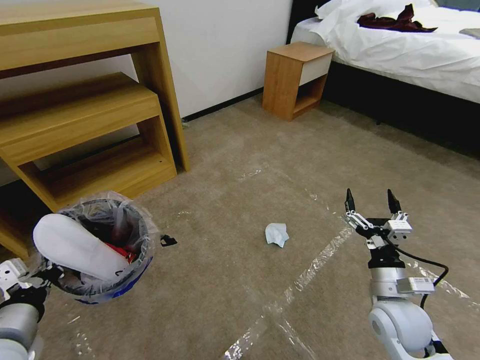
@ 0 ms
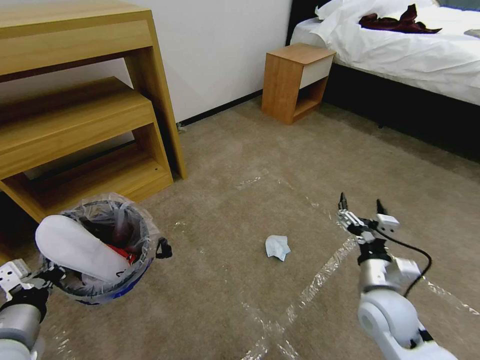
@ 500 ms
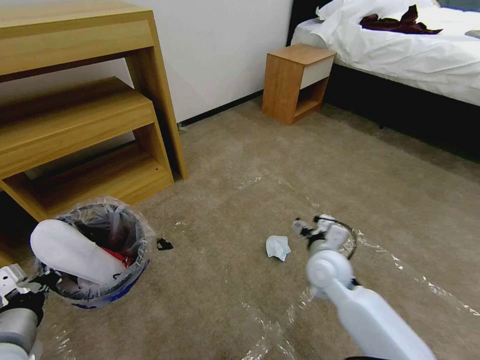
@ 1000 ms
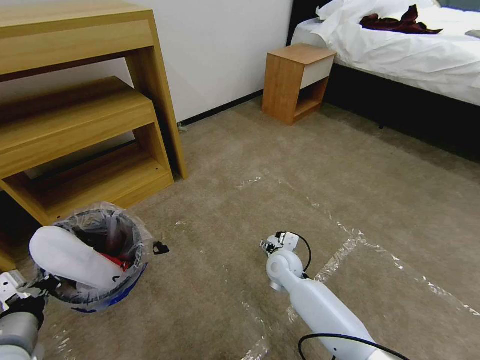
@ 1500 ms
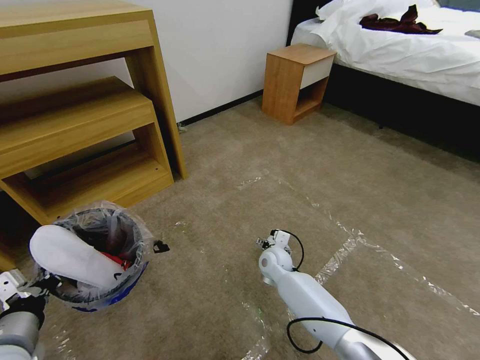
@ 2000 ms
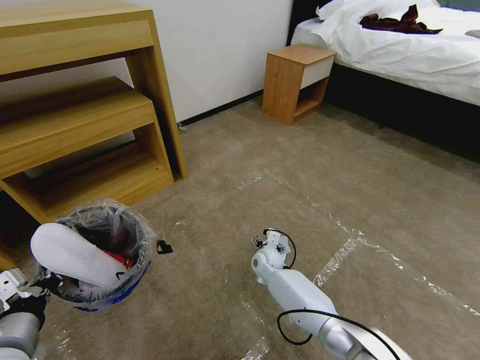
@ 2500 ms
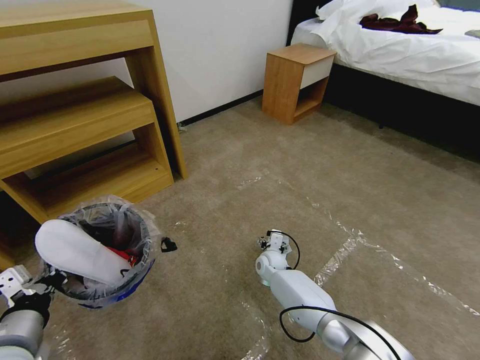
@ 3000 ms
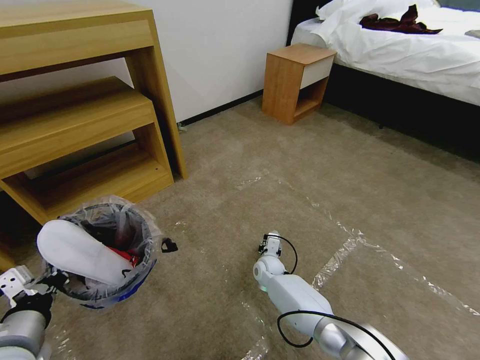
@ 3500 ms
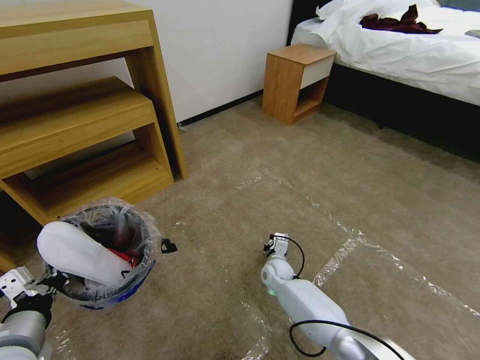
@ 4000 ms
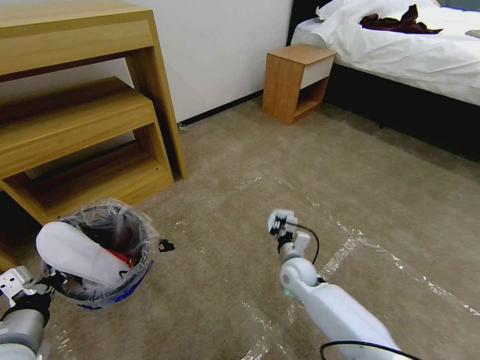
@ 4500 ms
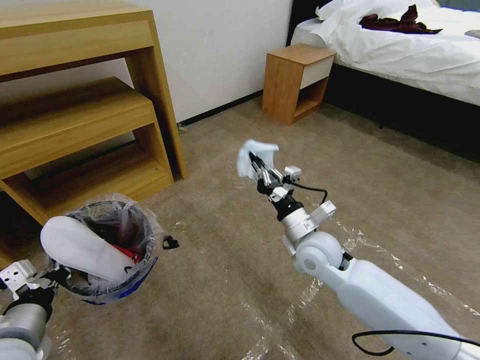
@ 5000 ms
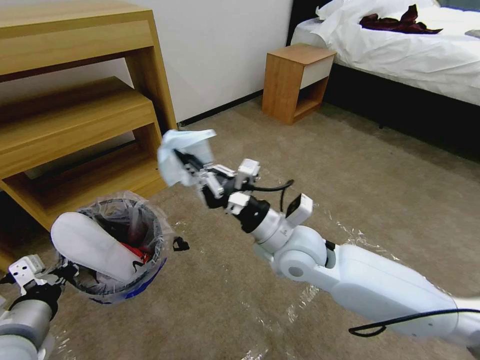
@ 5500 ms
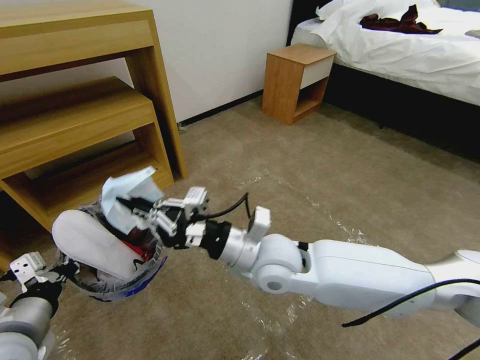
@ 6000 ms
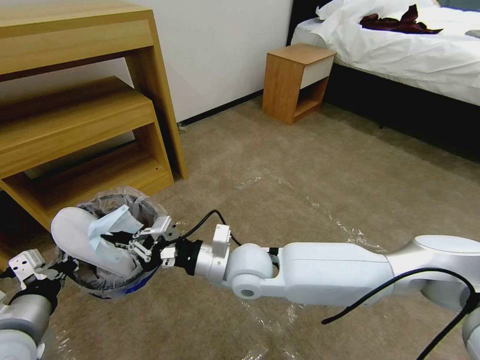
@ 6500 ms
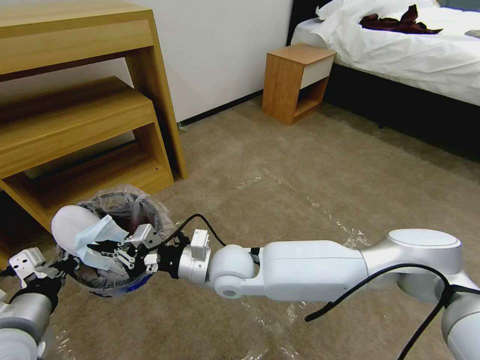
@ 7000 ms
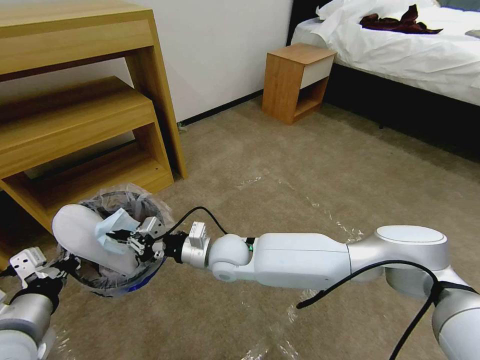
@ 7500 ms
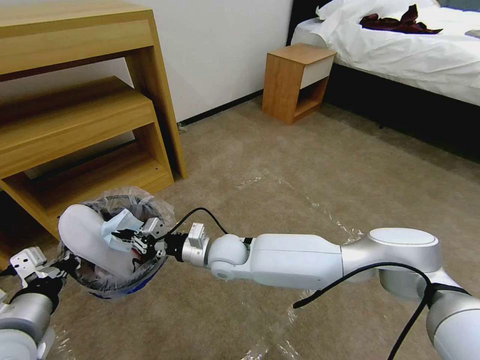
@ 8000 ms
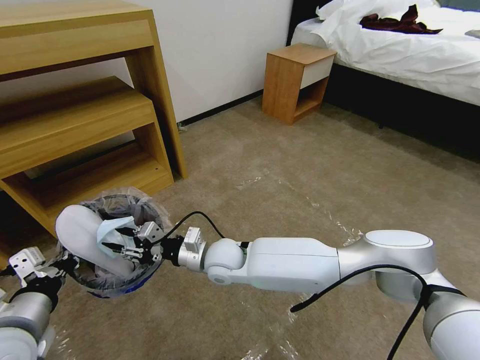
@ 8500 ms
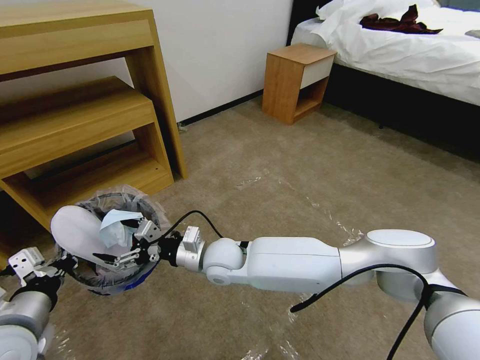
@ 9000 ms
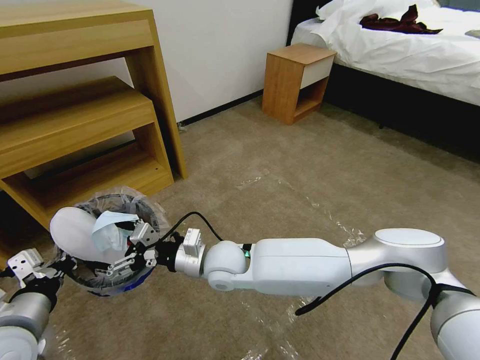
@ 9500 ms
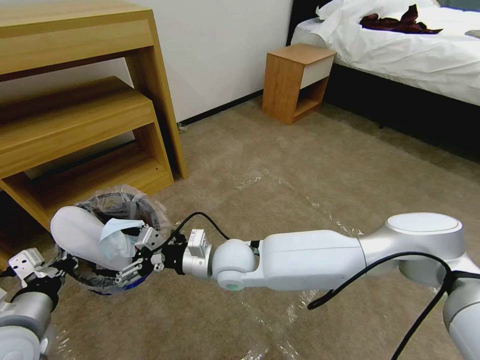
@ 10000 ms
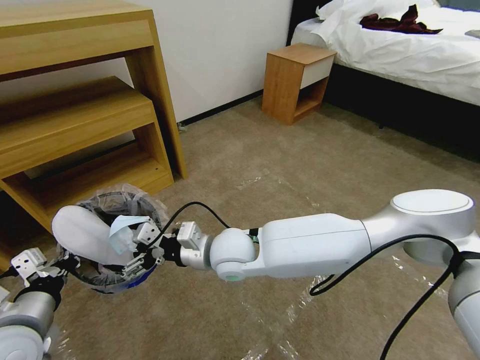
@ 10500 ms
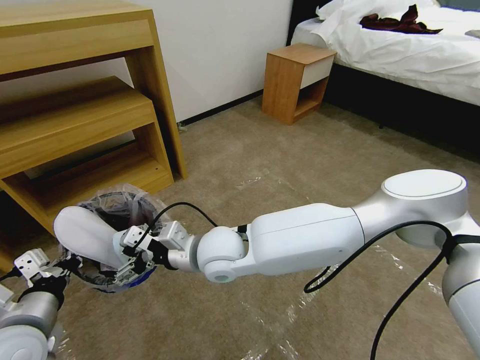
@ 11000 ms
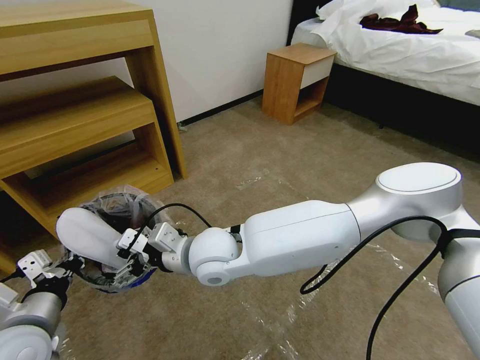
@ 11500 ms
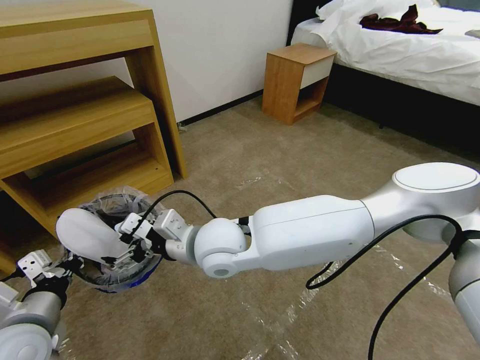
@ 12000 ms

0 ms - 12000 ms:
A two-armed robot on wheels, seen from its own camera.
Task of the whole recording: Pick up the trash bin and place the garbage on the floor into it.
0 ms - 2000 ms: The right gripper heads to the left, forward and downward, covering approximately 30 cm.
2000 ms - 4000 ms: The right gripper goes approximately 5 cm downward, and closes its fingers.
4000 ms - 6000 ms: The right gripper is displaced upward by approximately 30 cm.
6000 ms - 8000 ms: The right gripper goes about 15 cm downward, to the left and forward.
8000 ms - 10000 ms: The right gripper shifts by some 5 cm, and opens.
10000 ms - 12000 ms: The right gripper moves upward, approximately 10 cm.

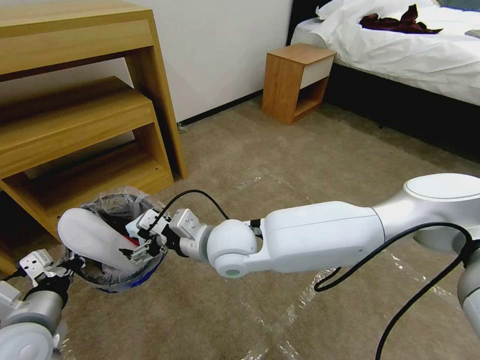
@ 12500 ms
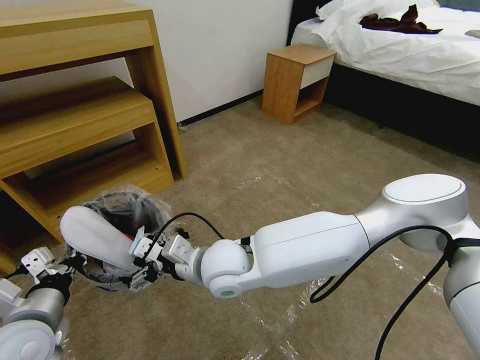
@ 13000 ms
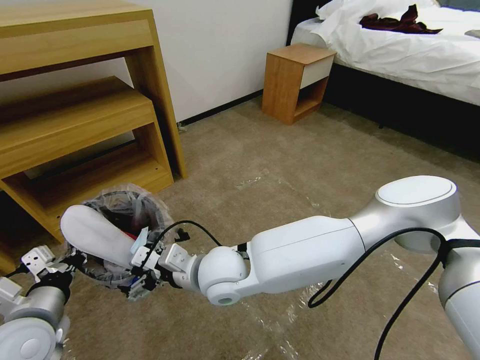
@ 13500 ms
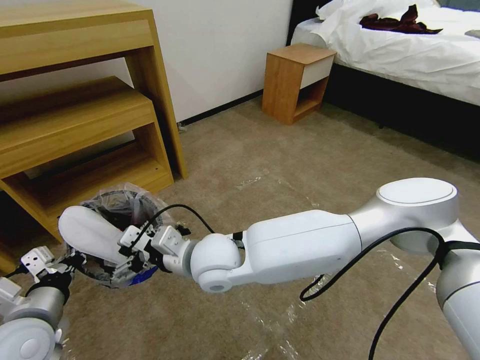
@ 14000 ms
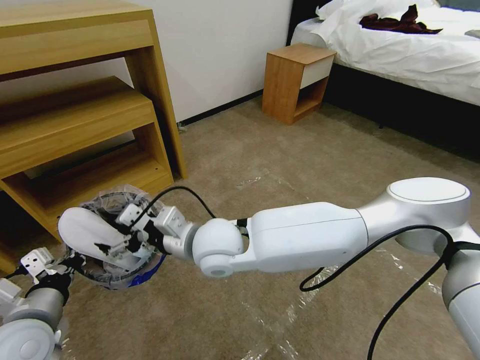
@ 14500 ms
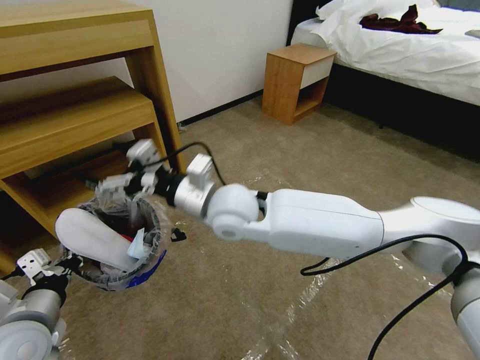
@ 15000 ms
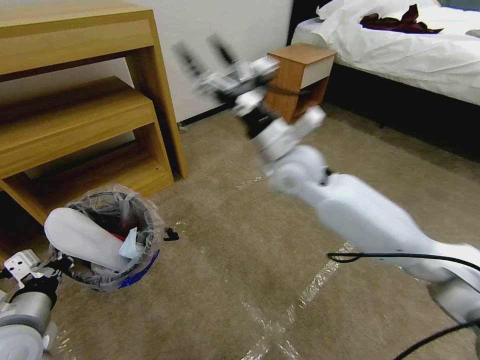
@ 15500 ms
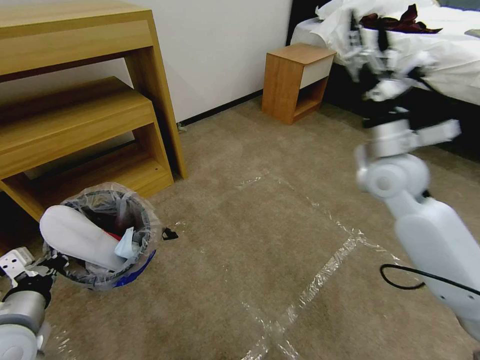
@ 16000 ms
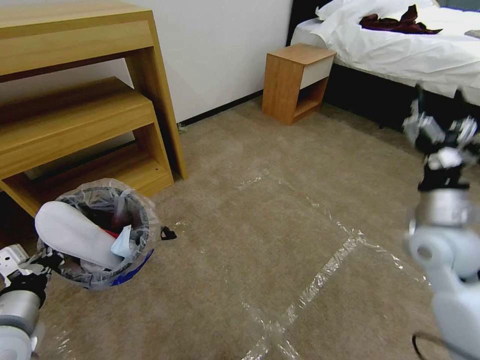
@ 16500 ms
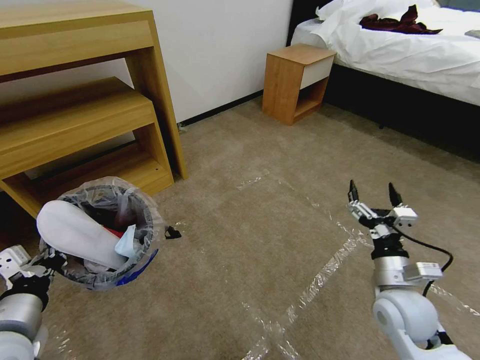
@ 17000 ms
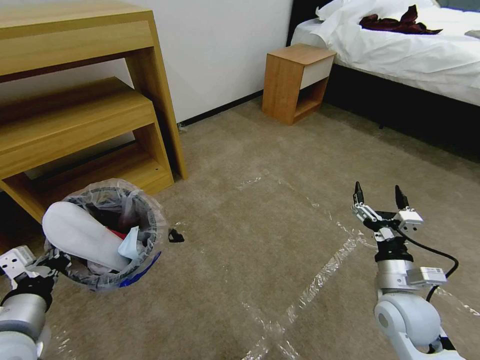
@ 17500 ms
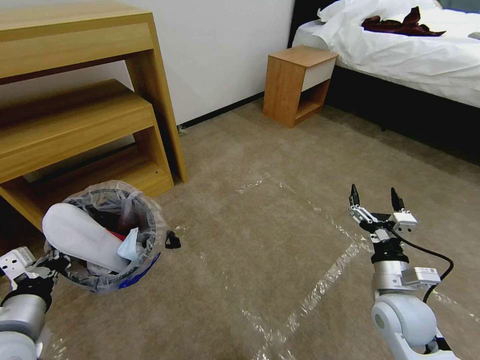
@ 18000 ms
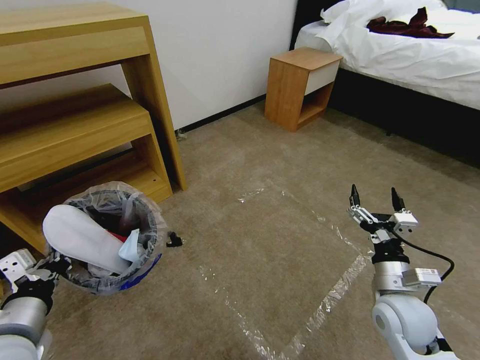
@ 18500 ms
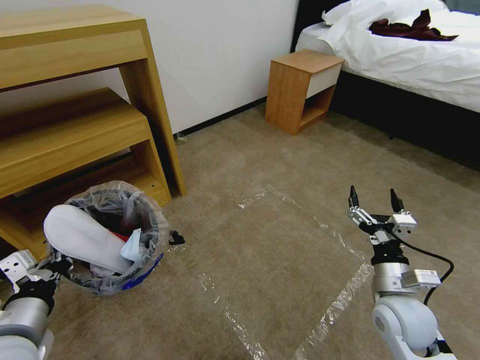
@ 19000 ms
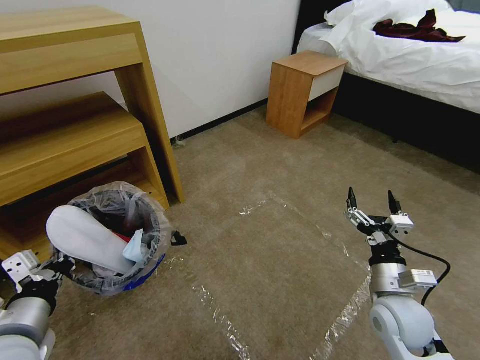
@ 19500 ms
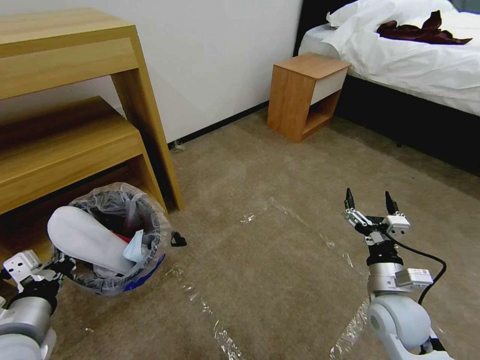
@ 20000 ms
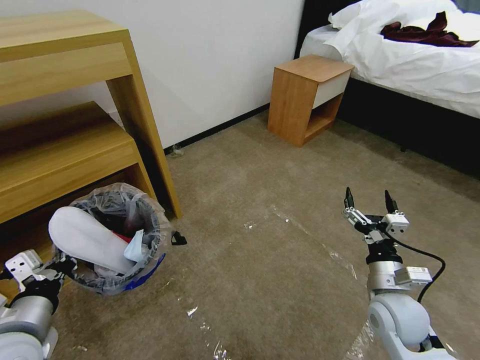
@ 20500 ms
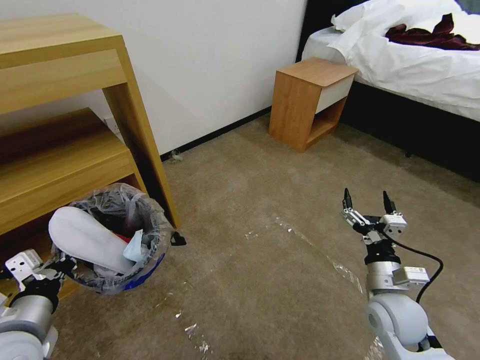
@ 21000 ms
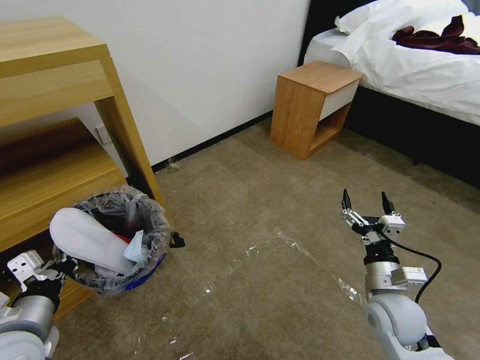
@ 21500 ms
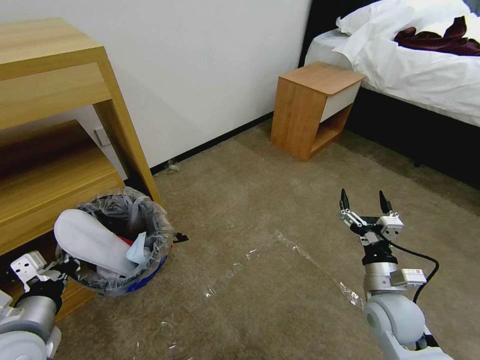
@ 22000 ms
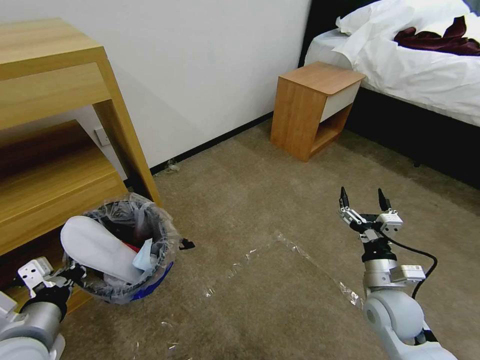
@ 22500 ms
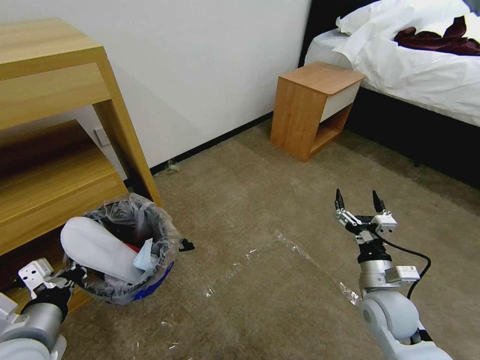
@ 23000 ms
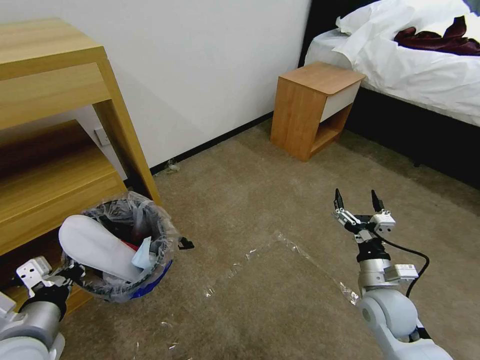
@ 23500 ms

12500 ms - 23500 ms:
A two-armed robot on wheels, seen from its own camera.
Task of the whole recording: Pick up the trash bin and place the garbage on the floor into it.
12500 ms - 14500 ms: The grippers make only small movements.
14500 ms - 16000 ms: The right gripper moves to the right, approximately 35 cm.
16000 ms - 18000 ms: The right gripper is displaced downward and backward by some 25 cm.
21500 ms - 23500 ms: The grippers move only a little.
